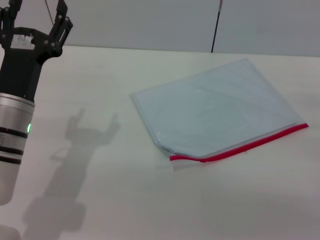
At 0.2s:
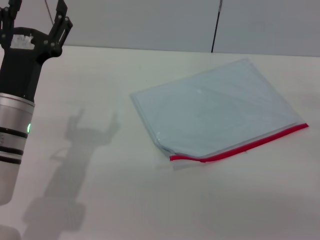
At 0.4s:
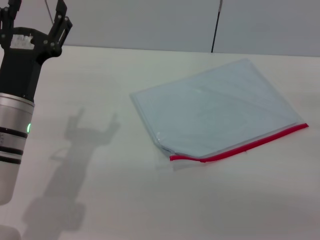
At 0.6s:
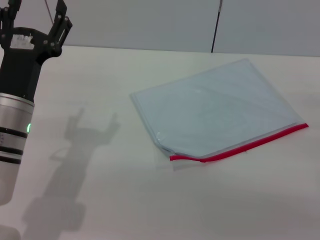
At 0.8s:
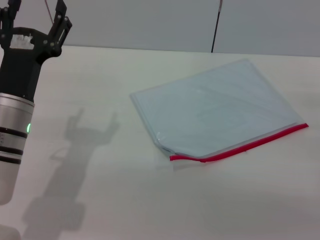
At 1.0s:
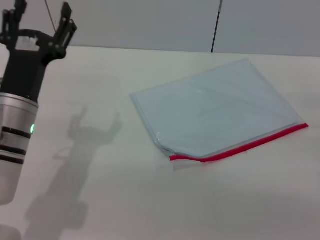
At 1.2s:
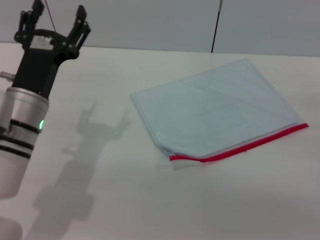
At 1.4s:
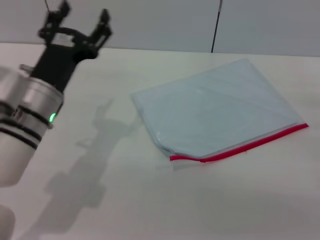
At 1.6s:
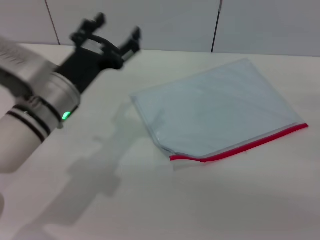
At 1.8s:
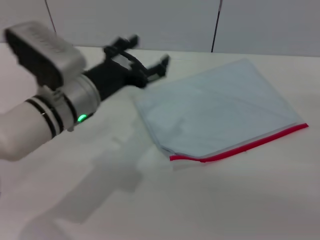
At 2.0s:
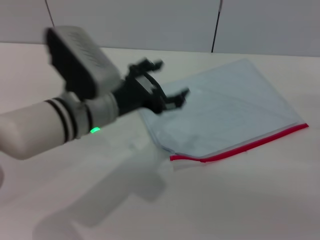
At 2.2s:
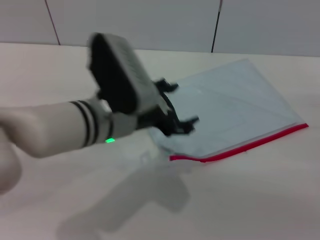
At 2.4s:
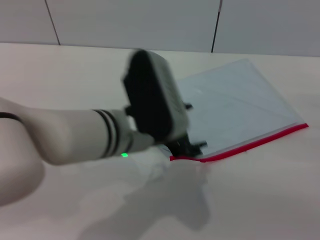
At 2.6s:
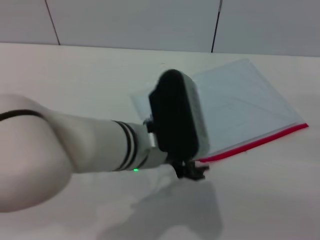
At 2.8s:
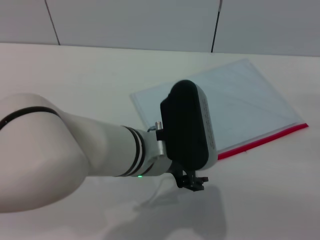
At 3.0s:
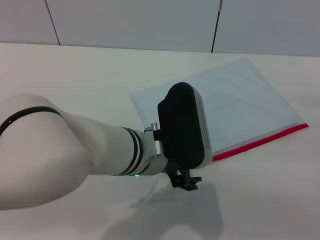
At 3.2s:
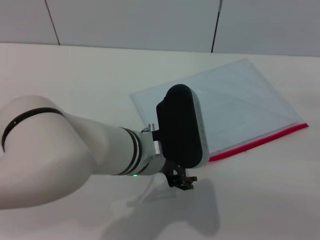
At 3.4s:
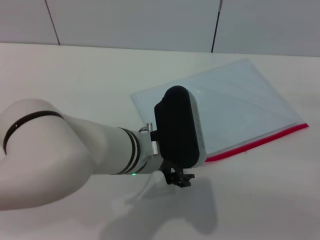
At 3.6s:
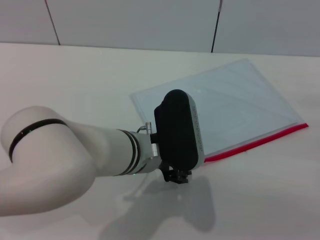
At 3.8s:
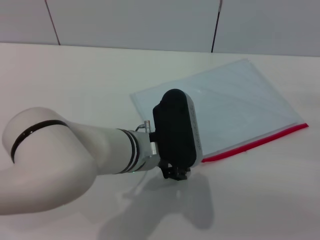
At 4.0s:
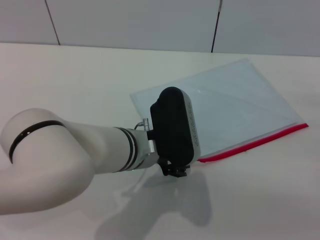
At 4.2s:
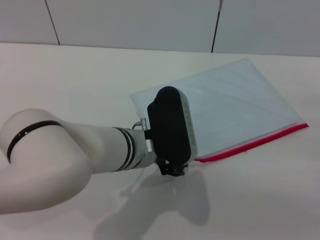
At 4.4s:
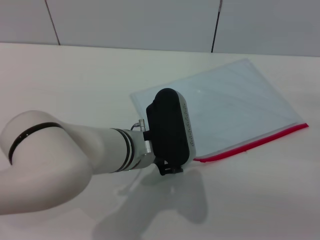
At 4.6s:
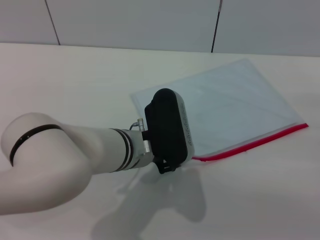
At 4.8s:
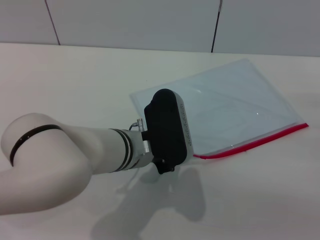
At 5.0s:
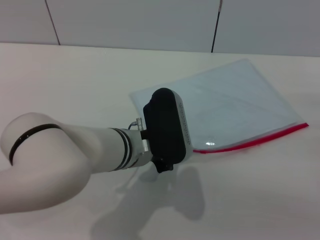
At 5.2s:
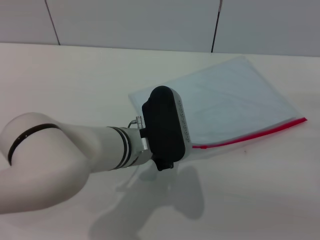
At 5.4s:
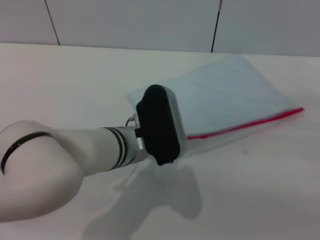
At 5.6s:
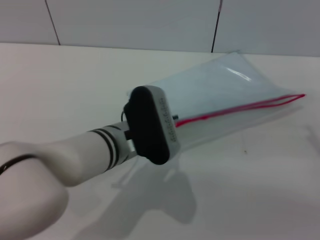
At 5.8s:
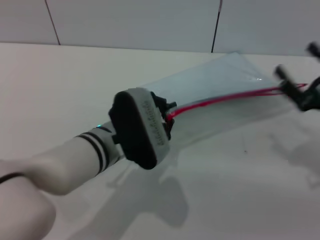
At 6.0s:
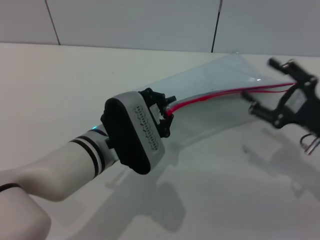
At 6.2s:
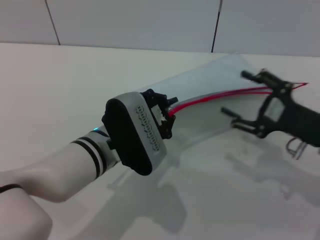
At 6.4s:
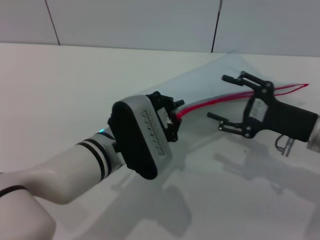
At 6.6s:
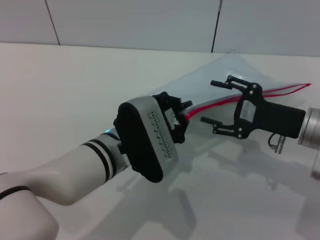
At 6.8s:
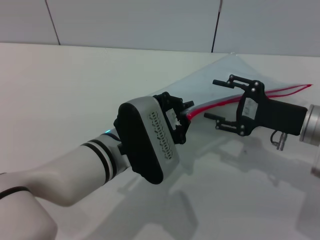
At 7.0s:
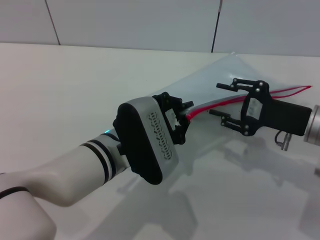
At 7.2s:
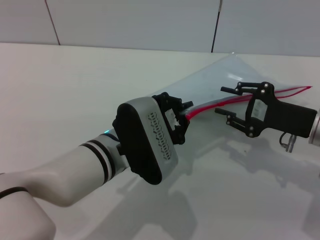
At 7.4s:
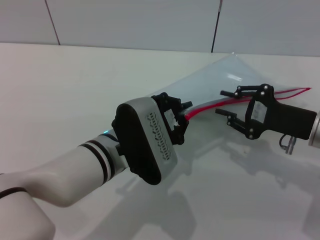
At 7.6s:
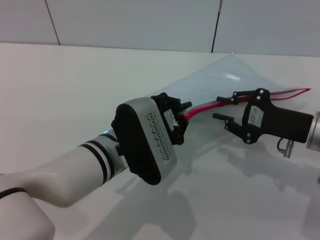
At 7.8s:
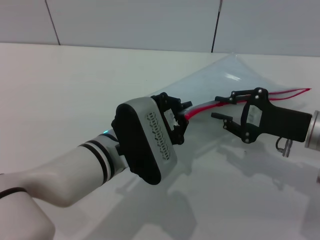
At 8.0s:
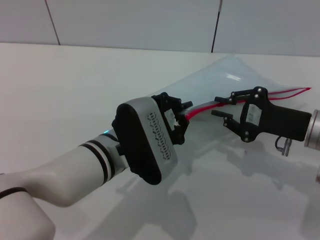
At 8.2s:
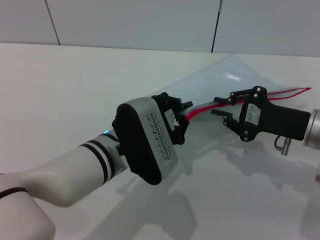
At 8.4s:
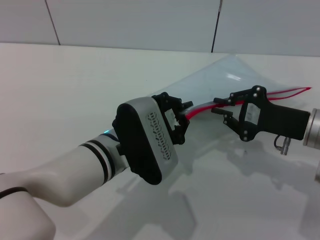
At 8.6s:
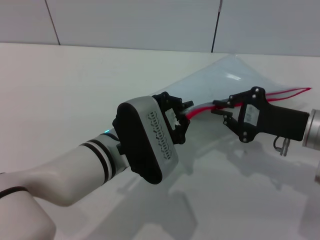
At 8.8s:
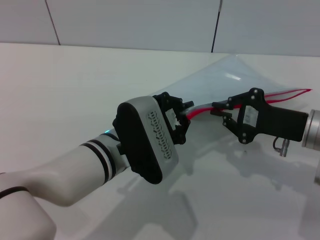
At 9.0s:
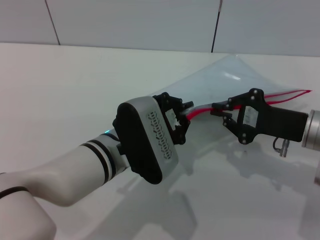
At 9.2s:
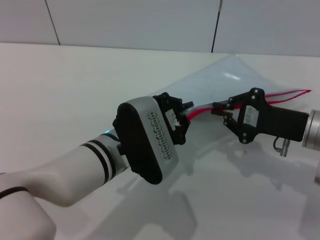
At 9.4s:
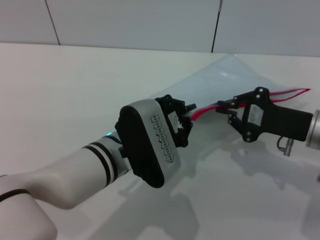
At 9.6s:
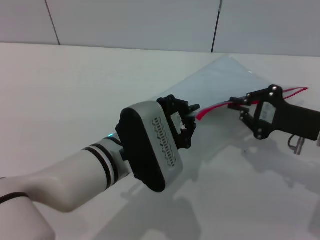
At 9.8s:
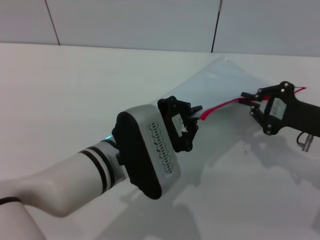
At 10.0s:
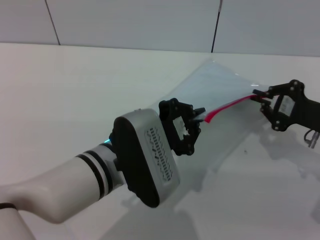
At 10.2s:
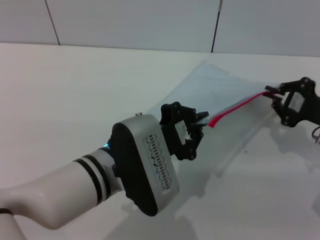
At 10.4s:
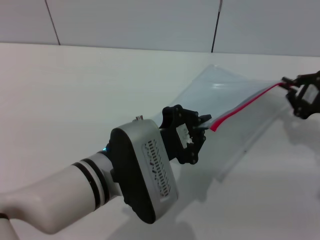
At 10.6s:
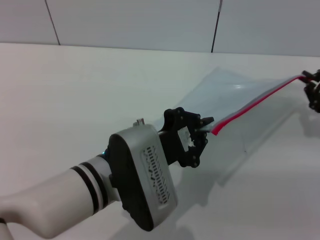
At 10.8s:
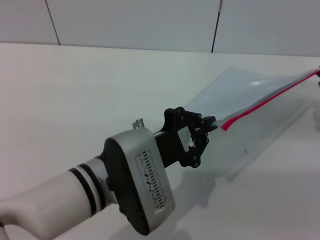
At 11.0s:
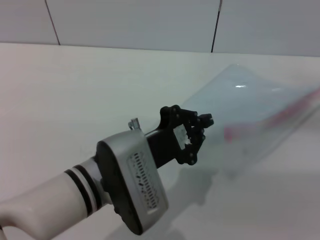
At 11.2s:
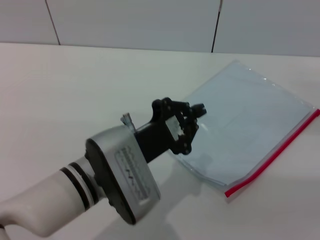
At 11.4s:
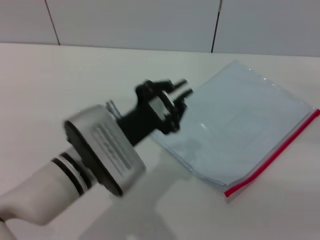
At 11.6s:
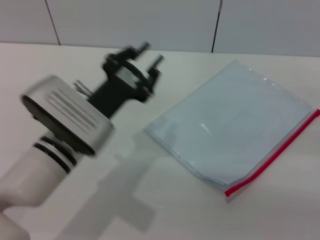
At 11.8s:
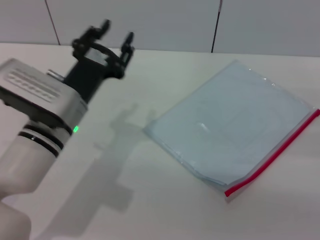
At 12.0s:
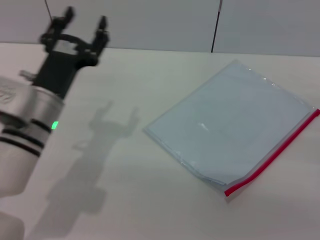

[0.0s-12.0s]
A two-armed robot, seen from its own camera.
Step, 0.0s to 5.8s: Pick up the transparent plastic bag with the left gripper.
Step, 6.0s to 11.2s: Pulling up the zipper on the transparent plastic bag with the right gripper to close it.
Step, 11.4s to 12.0s: Place the transparent plastic bag.
0.0s to 1.6s: The left gripper ends up some 5 cm from where it was.
1.6s to 3.0s: The left gripper is displaced to the right by approximately 10 cm.
3.0s to 4.4s: The grippers stay close to where they were, moving slightly.
4.4s to 6.0s: The right gripper shifts approximately 5 cm to the left. Meanwhile the left gripper closes up.
6.0s to 7.6s: The right gripper closes its fingers.
7.6s to 9.0s: The right gripper closes its fingers.
9.0s to 10.4s: The right gripper is displaced to the right by approximately 5 cm.
10.4s to 12.0s: The right gripper travels backward by approximately 10 cm, and opens its fingers. Meanwhile the left gripper shifts some 15 cm to the left and forward, and opens.

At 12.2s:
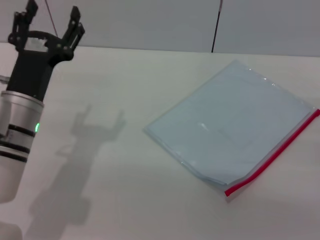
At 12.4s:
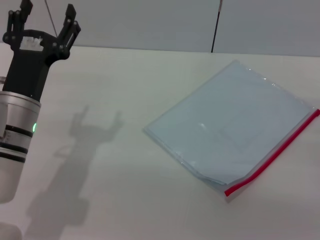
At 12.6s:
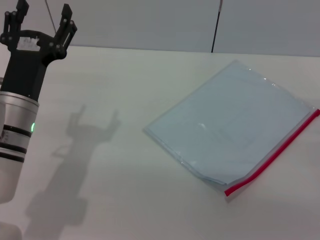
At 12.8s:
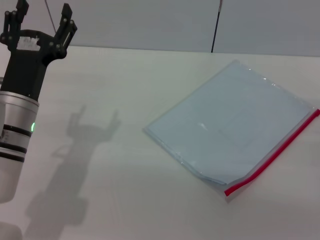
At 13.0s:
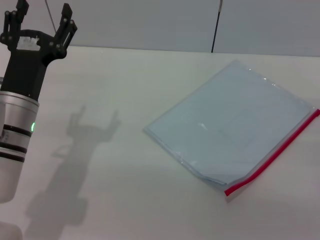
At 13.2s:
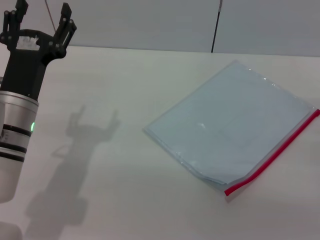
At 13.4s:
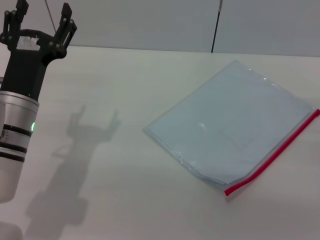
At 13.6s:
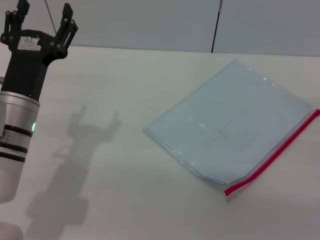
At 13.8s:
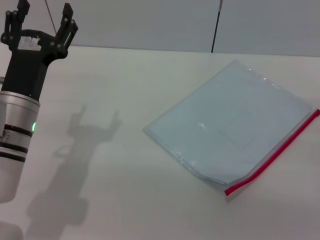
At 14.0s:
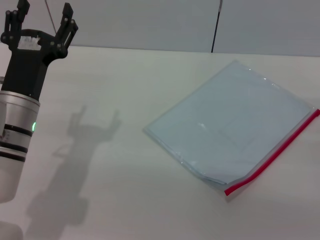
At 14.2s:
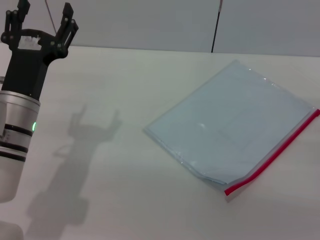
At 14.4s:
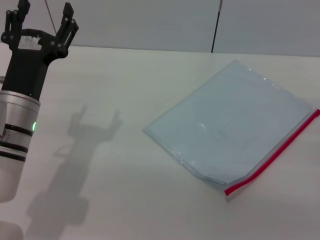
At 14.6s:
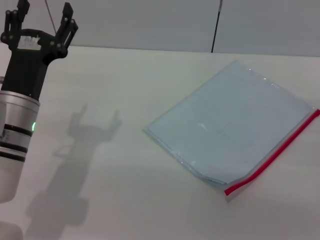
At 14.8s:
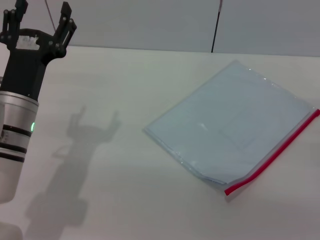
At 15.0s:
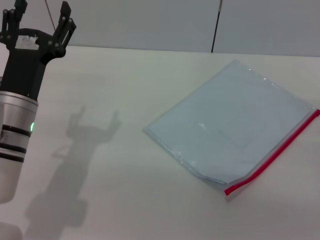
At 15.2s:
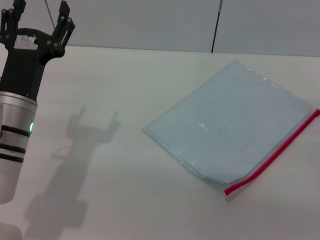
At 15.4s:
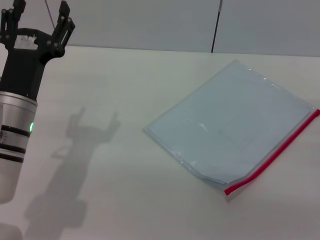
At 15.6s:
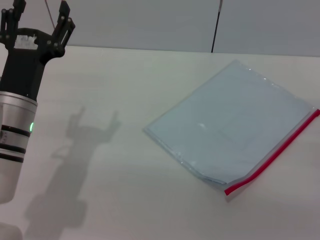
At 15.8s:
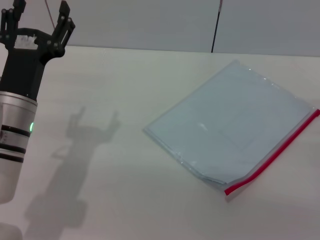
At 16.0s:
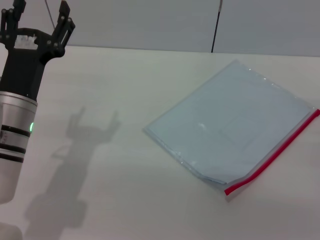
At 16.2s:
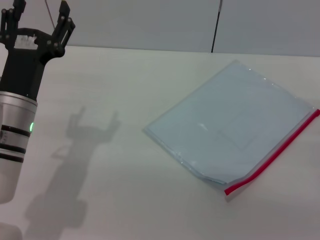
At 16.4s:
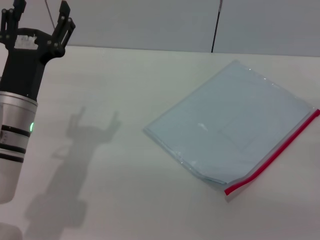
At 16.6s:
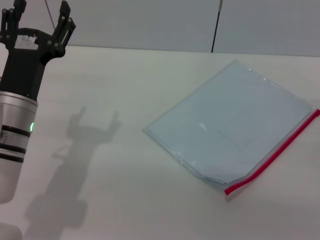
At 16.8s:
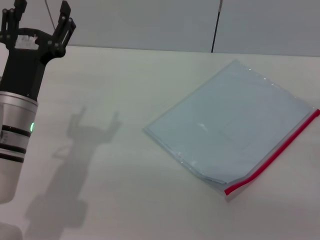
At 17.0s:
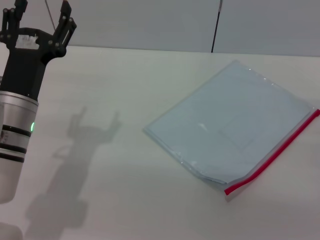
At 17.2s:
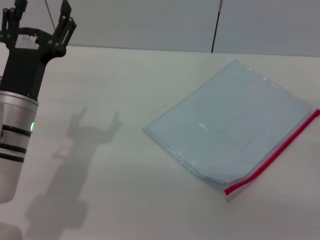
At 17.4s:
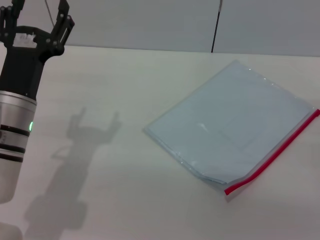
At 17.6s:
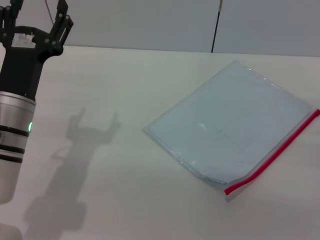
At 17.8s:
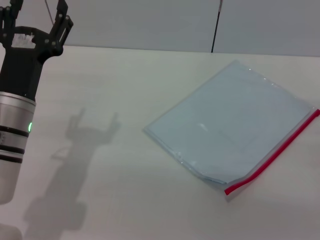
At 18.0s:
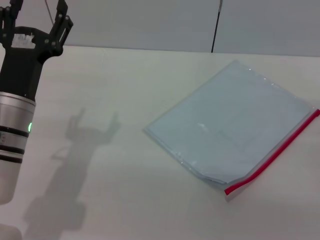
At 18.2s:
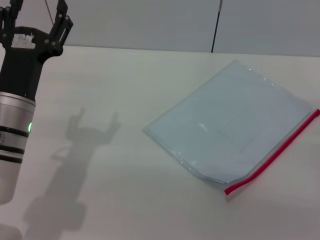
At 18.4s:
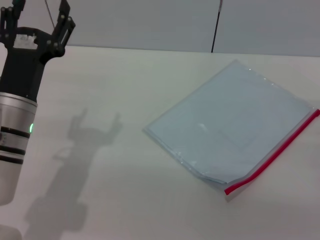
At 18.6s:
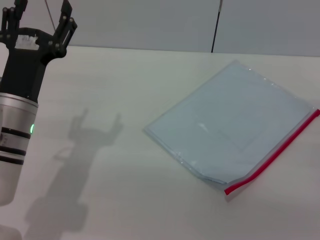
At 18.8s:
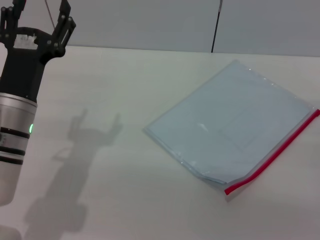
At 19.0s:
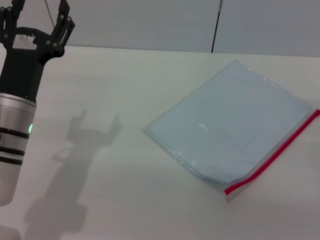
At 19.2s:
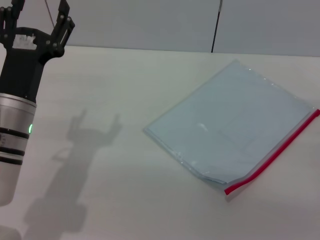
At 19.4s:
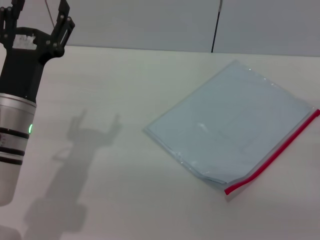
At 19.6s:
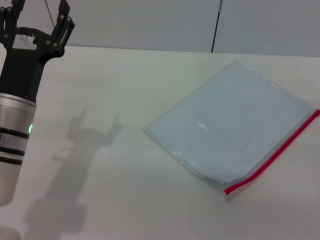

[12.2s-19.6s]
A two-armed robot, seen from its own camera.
12.2s to 19.6s: Both grippers stay about where they are.

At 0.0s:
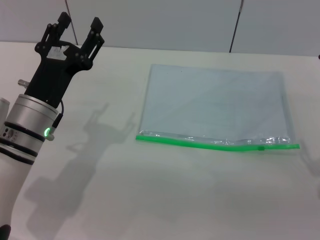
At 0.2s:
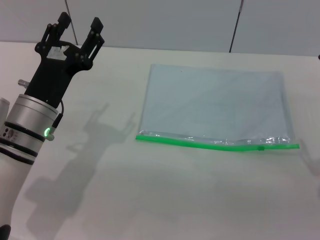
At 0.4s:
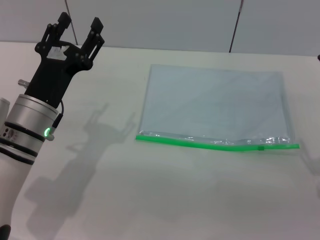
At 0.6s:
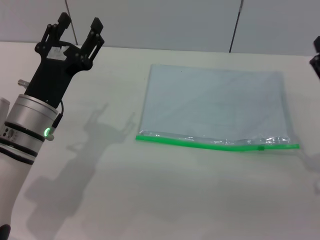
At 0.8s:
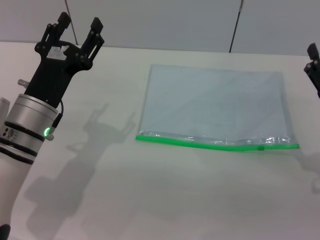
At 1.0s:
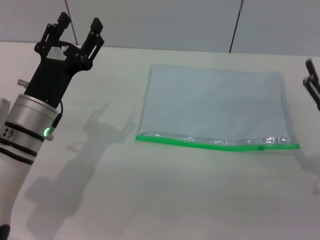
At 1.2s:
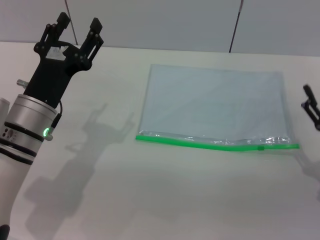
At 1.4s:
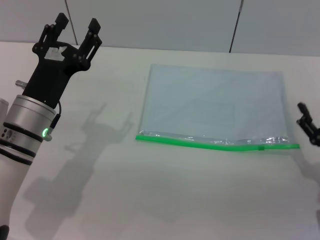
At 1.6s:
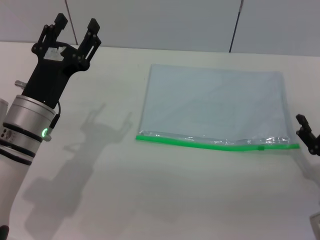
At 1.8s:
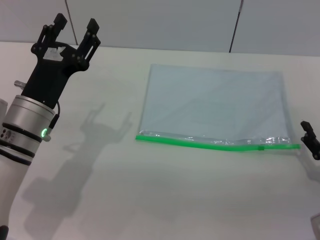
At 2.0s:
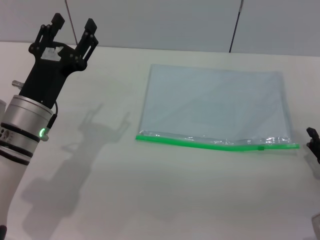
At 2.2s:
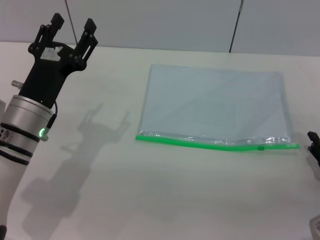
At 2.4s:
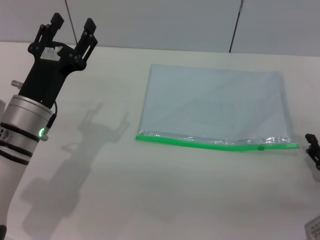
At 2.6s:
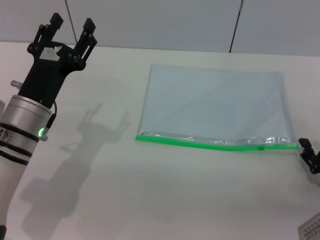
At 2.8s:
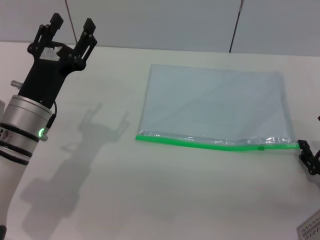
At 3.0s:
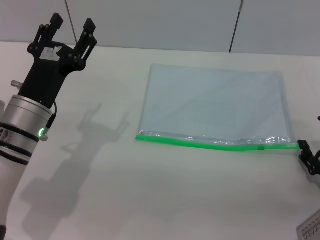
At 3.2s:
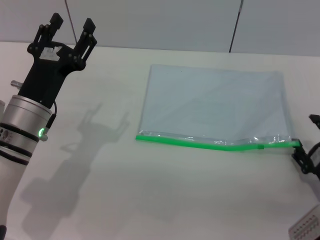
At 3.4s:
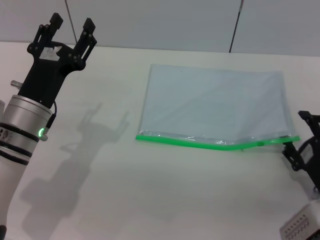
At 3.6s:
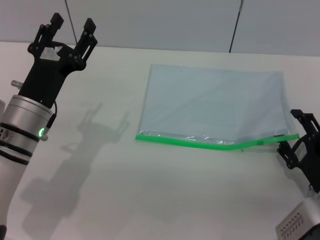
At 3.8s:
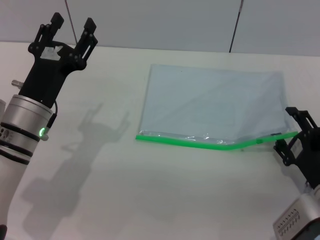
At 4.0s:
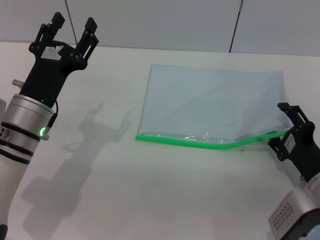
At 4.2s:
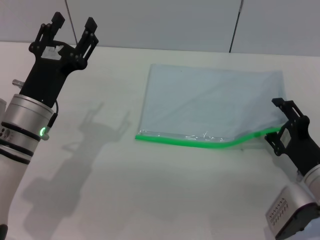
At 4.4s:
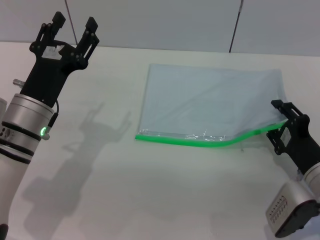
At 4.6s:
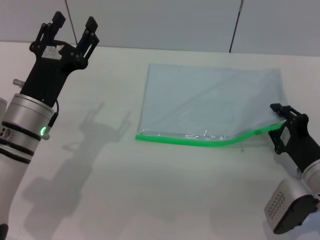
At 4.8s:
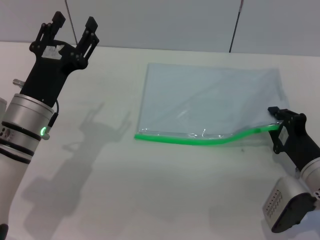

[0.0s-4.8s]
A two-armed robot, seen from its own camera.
0.0s to 1.6s: The right gripper goes approximately 5 cm downward.
3.2s to 4.8s: The right gripper moves approximately 5 cm, and closes.
